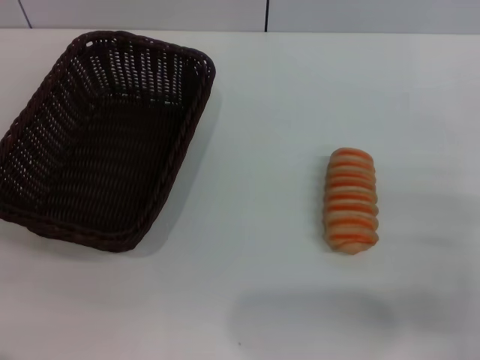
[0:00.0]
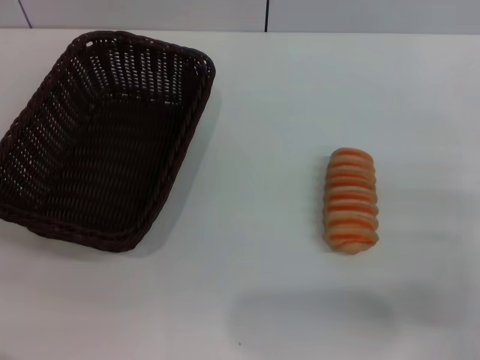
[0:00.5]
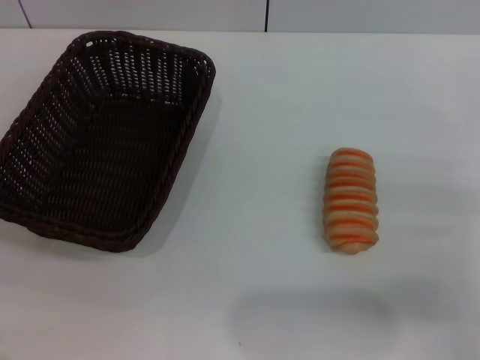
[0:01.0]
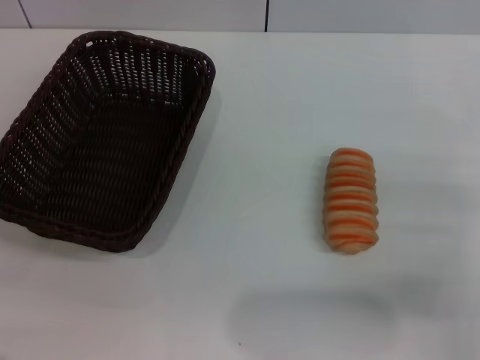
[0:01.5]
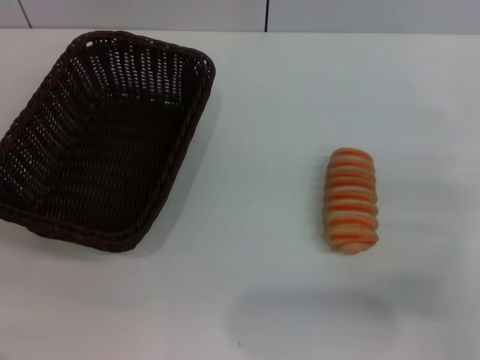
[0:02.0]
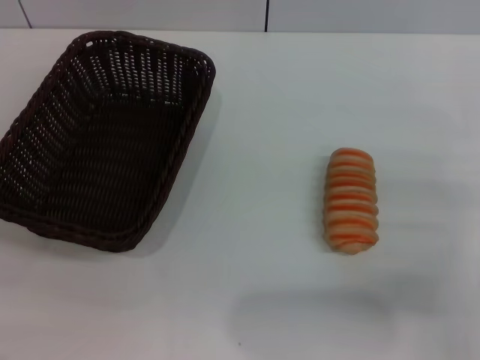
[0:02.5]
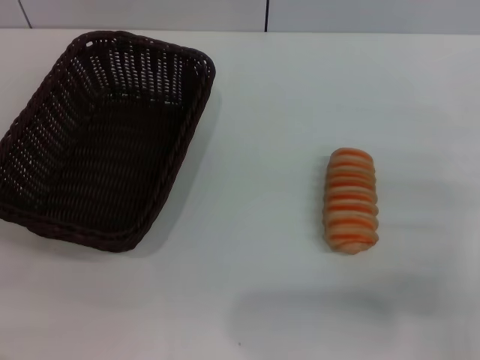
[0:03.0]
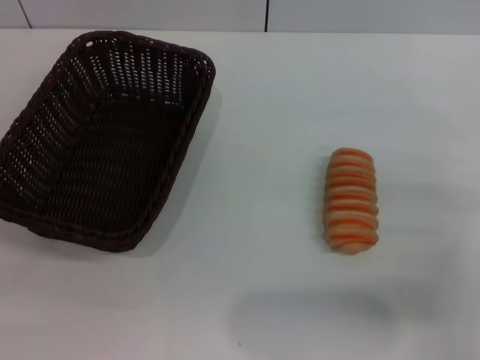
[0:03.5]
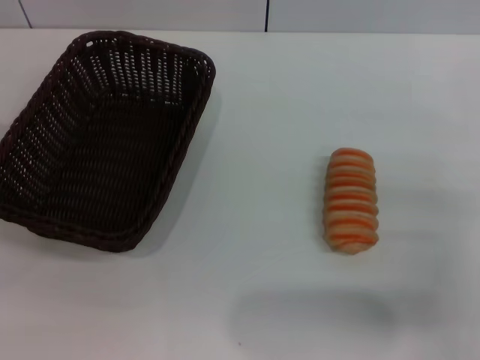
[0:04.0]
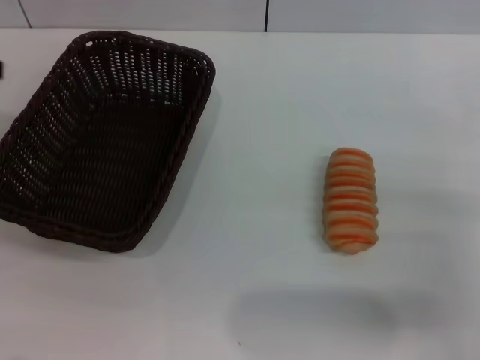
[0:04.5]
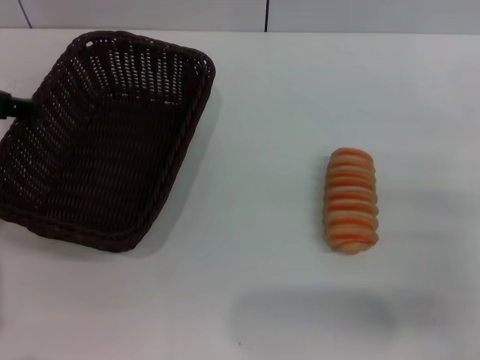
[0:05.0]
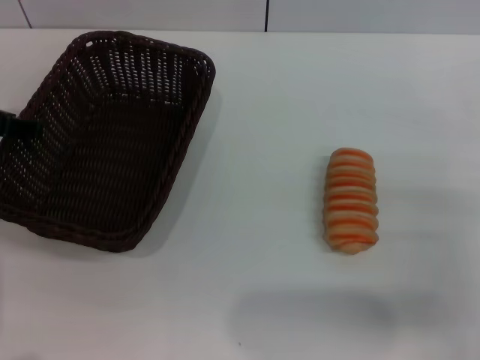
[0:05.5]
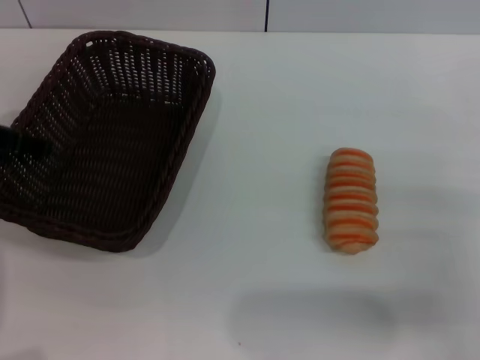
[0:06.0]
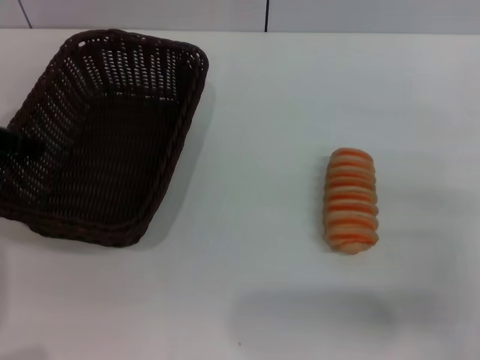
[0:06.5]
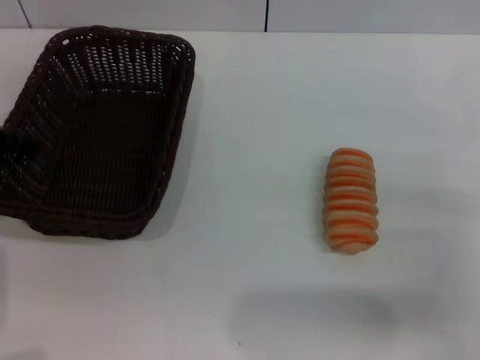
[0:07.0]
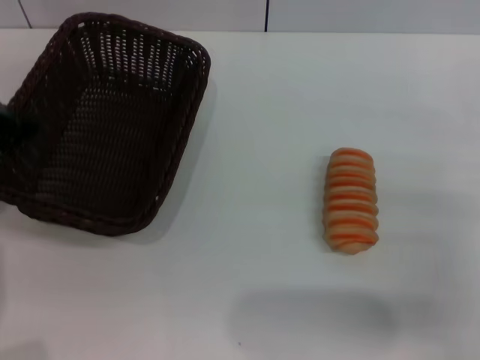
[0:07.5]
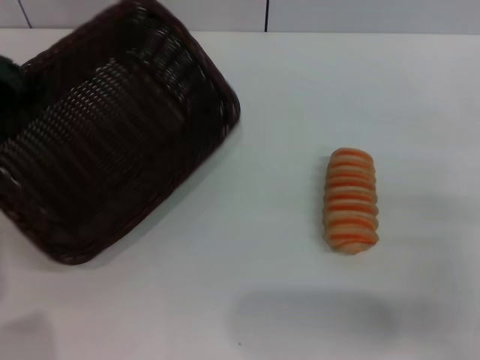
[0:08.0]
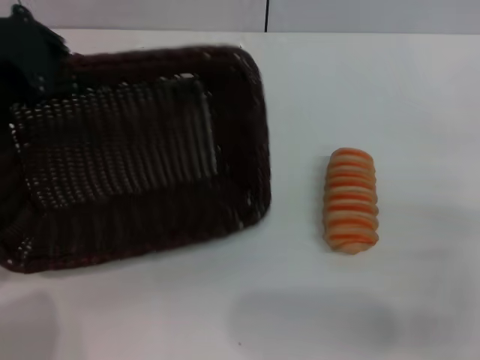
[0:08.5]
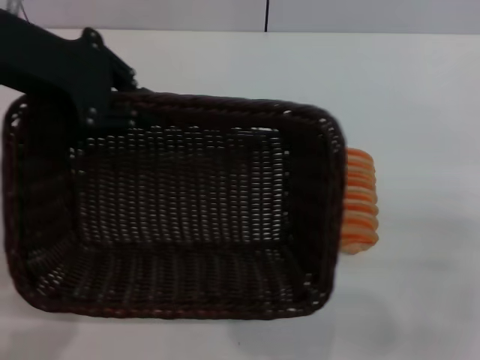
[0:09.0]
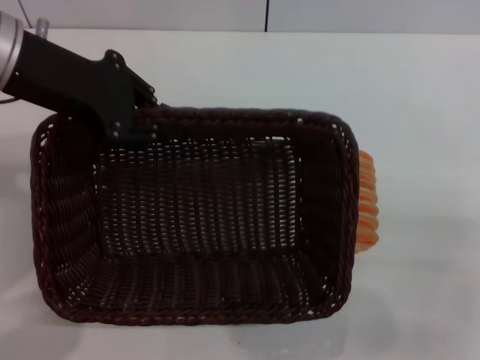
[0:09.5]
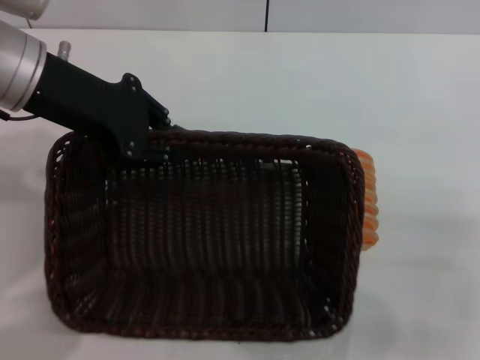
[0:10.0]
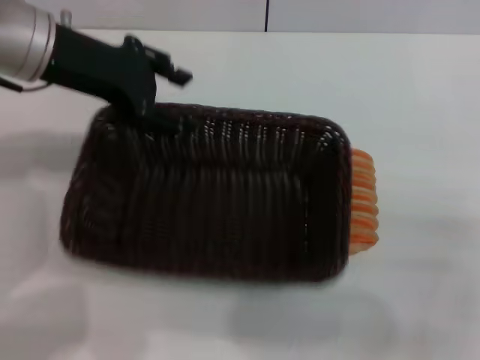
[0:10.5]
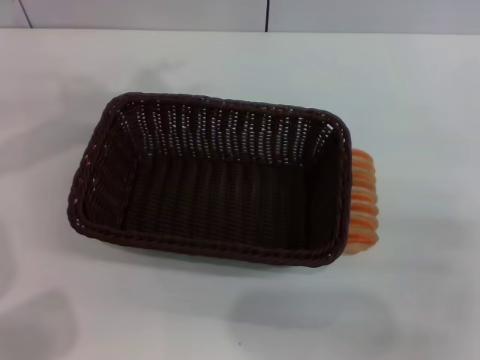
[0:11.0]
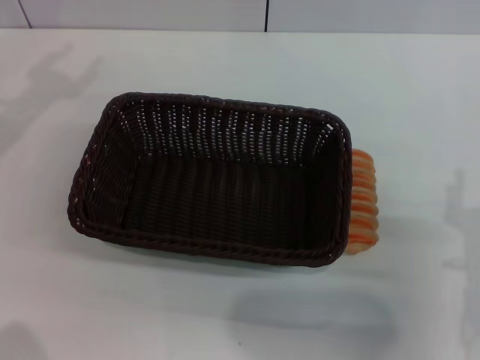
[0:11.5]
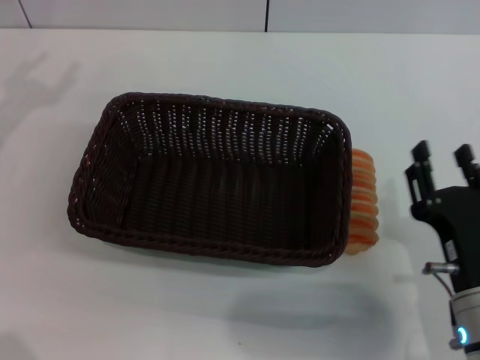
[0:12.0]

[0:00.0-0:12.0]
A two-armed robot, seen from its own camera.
Step, 0:00.0 to 0:08.0: Pick up the dark basket with the left gripper.
Step, 0:08.5 to 0:10.5: Place the dark basket in the center of view with the left gripper.
0:06.0 to 0:08.0: The left gripper heads upward, covering roughly 5 cm, and closes.
0:08.0 to 0:10.0: The left gripper shifts about 10 cm to the right.
0:10.0 to 0:12.0: The right gripper shifts about 10 cm to the left, while the left gripper travels to the left by roughly 15 cm, and opens up.

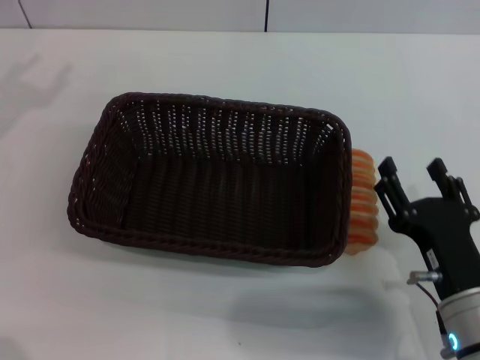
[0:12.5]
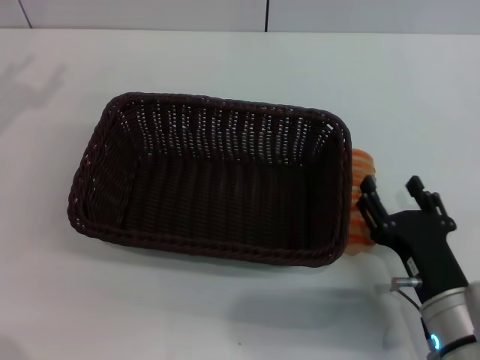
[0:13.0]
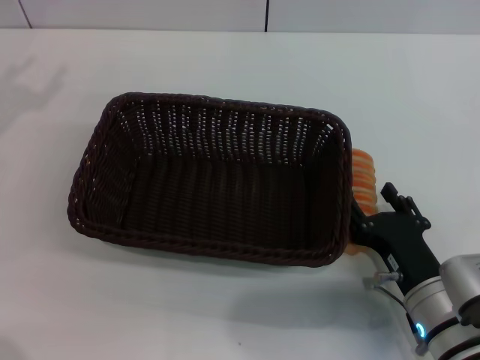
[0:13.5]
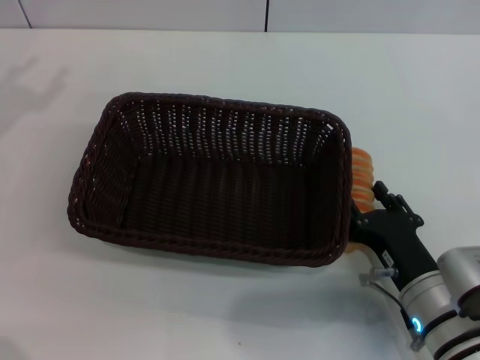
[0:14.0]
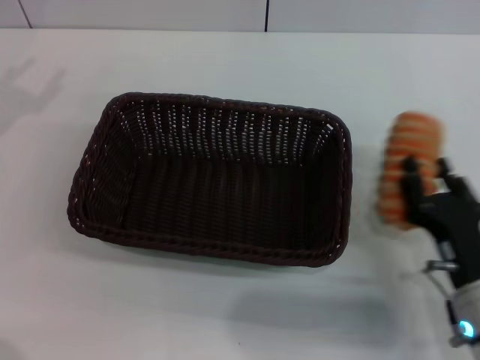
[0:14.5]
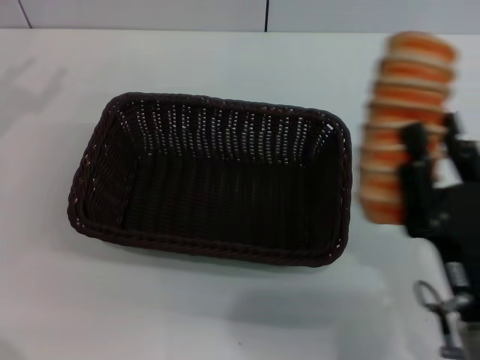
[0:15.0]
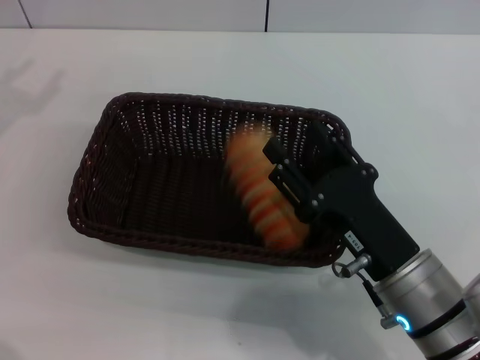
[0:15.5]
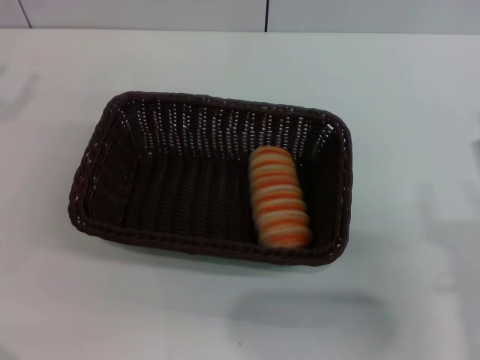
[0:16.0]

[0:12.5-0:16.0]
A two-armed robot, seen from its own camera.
Step, 0:12.5 to 0:14.5: Pick up the long bread with the right gripper.
Step, 0:15.0 to 0:15.5: Place the long bread into the dark basket with the right gripper.
0:12.5 to 0:14.5: The right gripper closes its fingers.
0:14.5 to 0:16.0: The right gripper goes to the left and returns, roughly 5 cm each way, and opens up.
